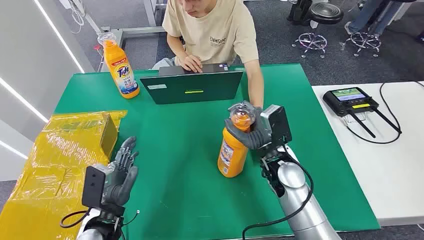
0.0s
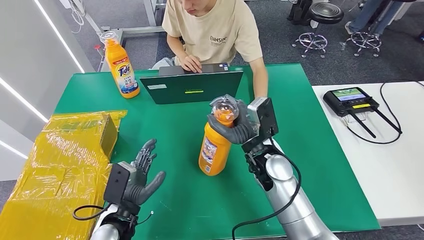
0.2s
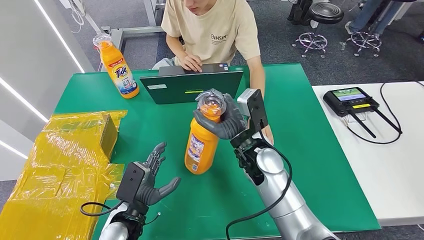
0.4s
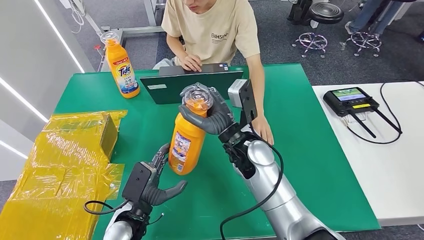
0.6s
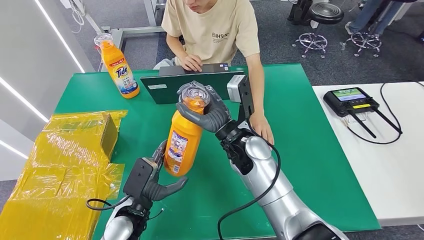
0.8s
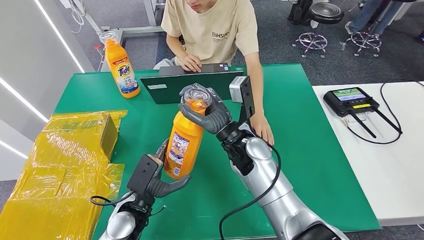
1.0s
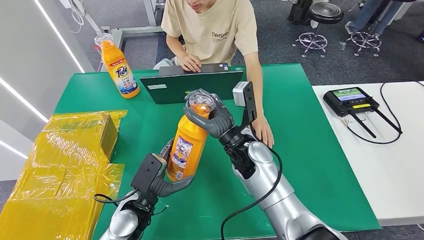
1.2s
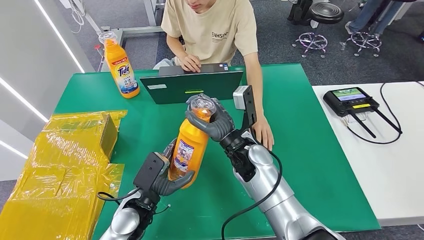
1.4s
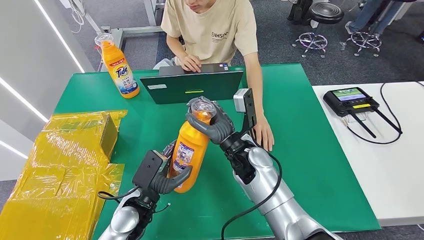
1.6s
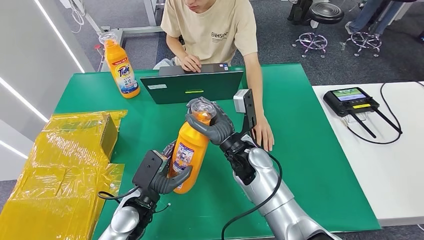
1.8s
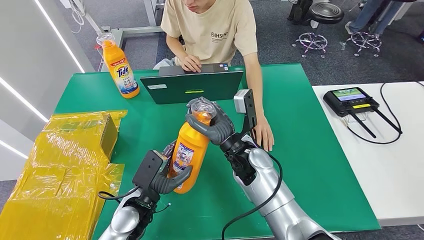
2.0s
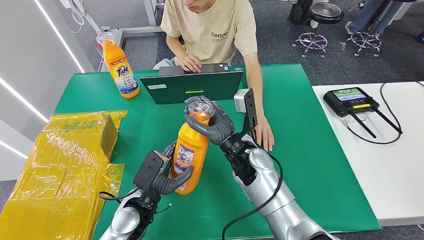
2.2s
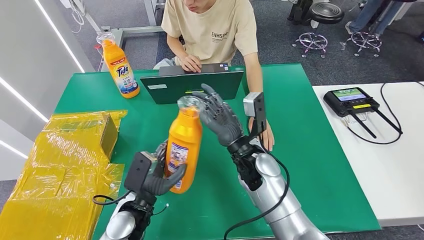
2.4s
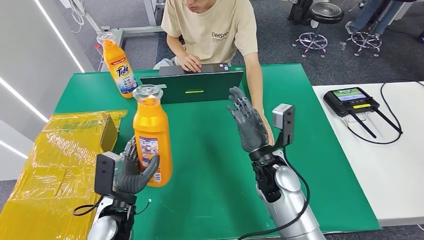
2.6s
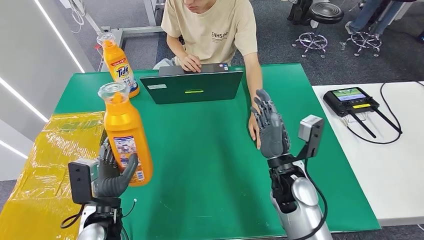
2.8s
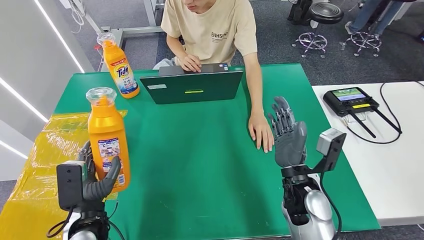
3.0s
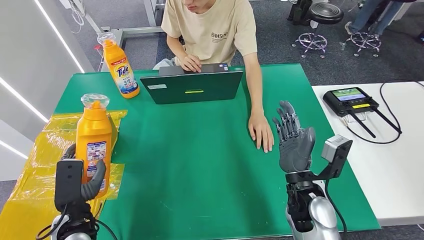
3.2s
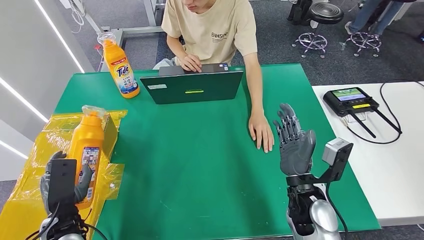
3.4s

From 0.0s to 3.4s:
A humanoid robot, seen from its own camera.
Step, from 0.0s to 1.0s: Pick up the bottle from the table.
Step, from 1.2s to 3.4s: Turn the bottle to the front side.

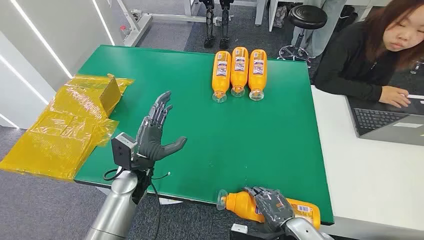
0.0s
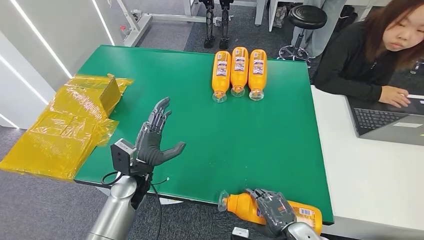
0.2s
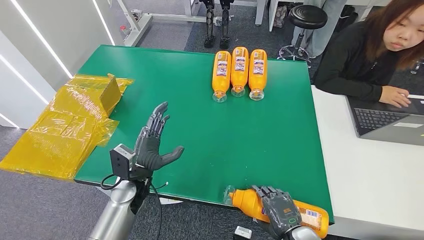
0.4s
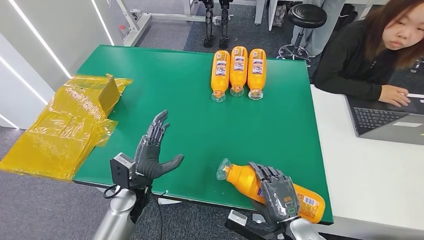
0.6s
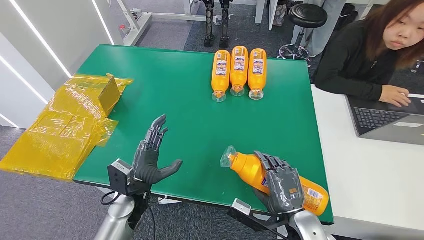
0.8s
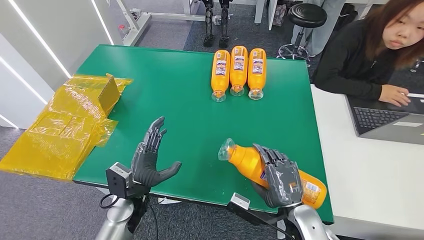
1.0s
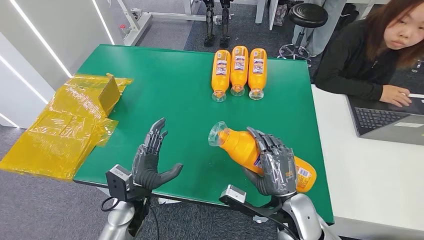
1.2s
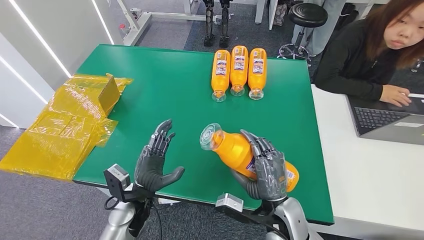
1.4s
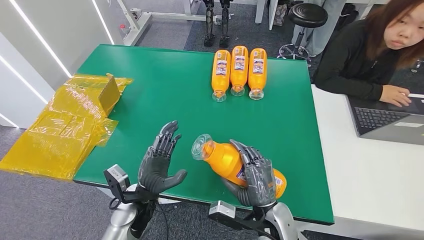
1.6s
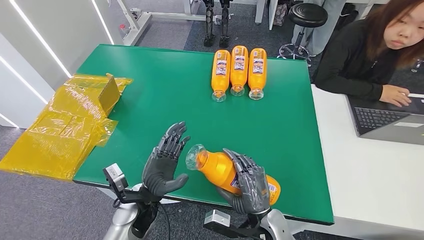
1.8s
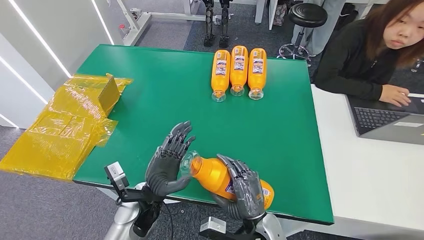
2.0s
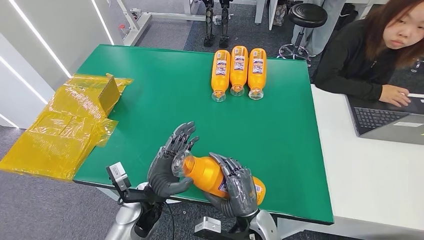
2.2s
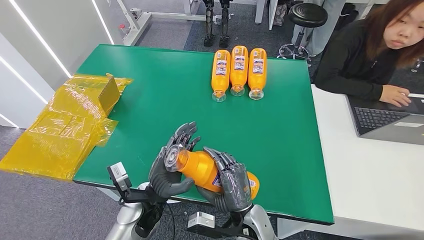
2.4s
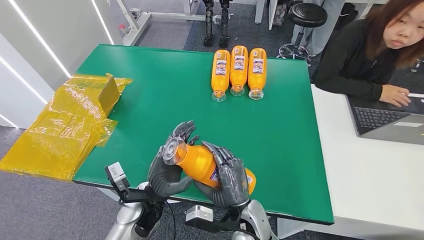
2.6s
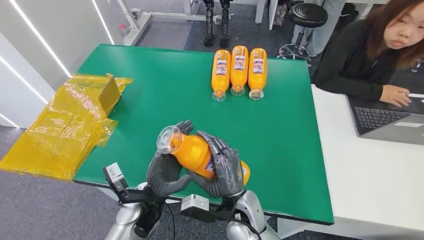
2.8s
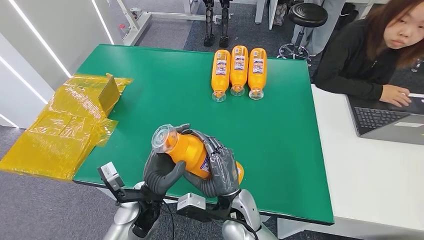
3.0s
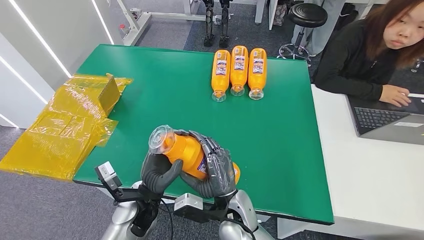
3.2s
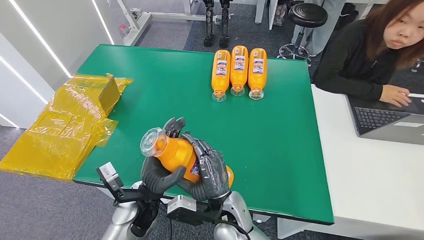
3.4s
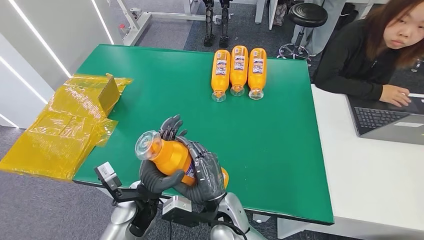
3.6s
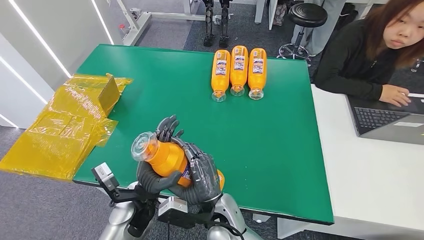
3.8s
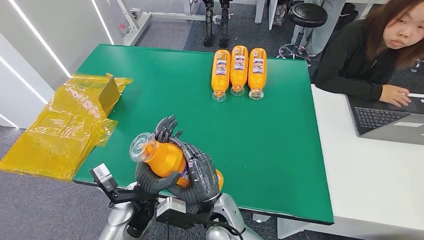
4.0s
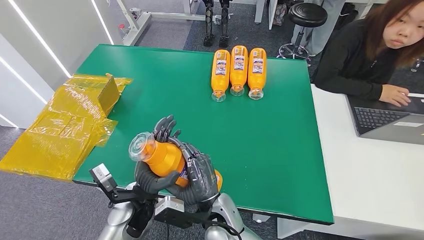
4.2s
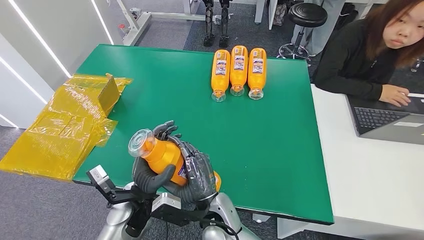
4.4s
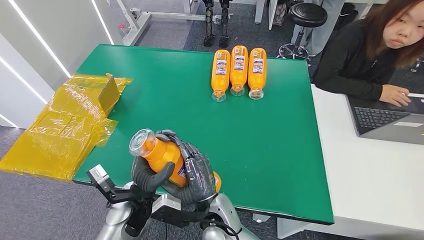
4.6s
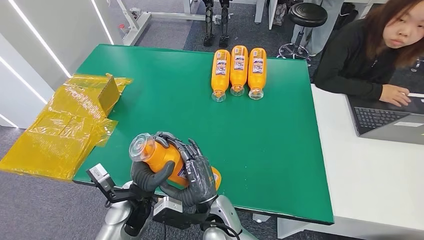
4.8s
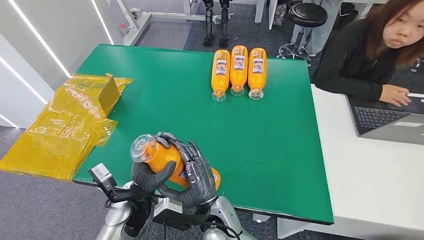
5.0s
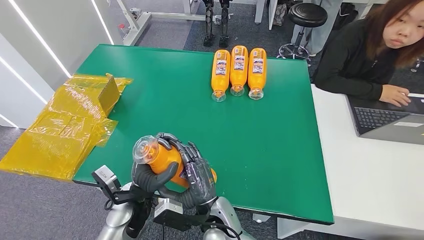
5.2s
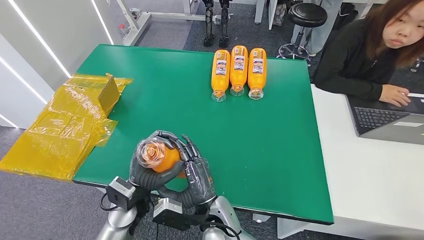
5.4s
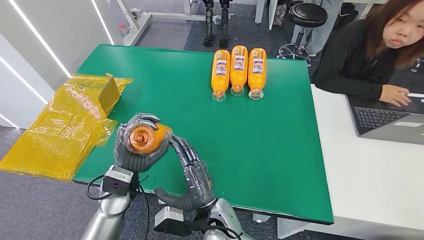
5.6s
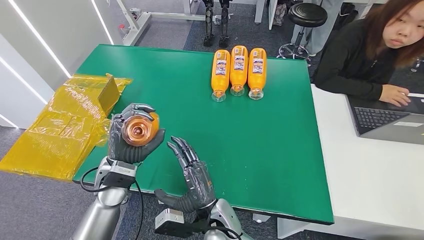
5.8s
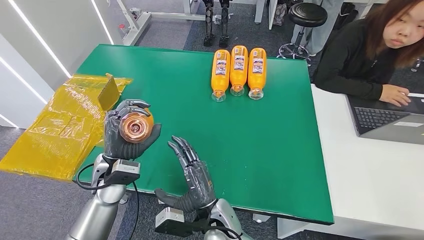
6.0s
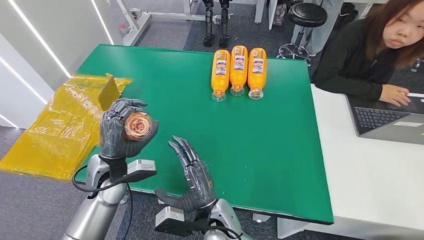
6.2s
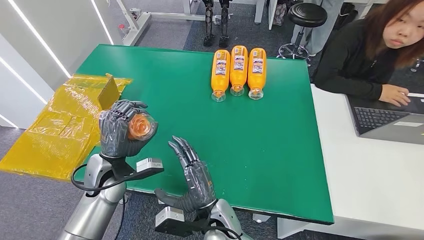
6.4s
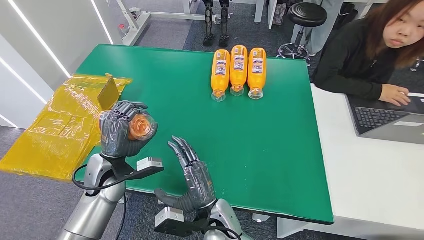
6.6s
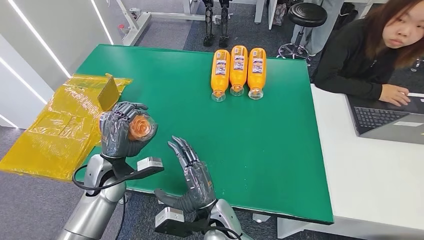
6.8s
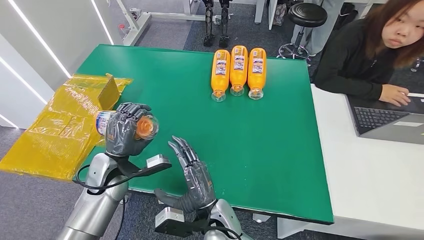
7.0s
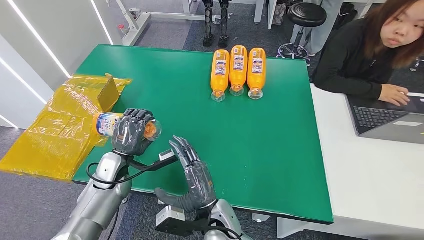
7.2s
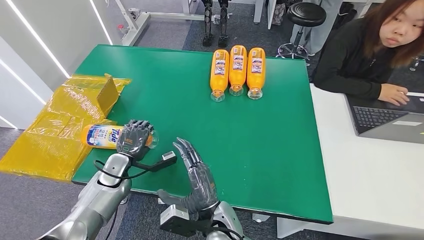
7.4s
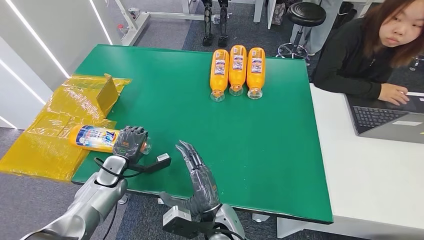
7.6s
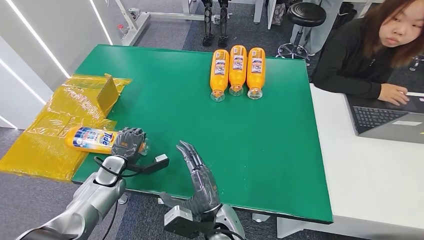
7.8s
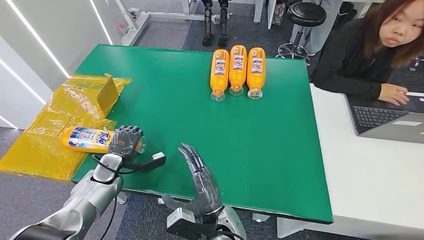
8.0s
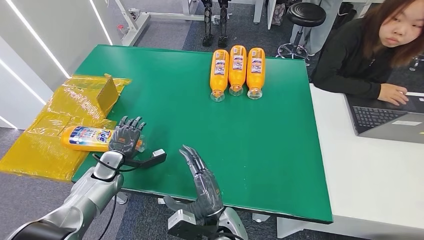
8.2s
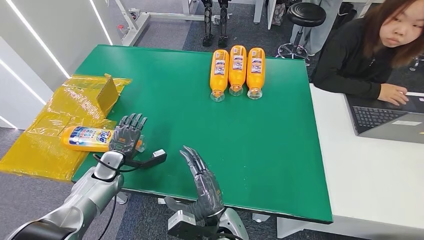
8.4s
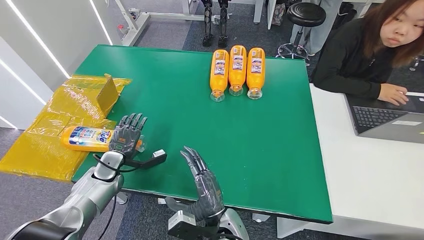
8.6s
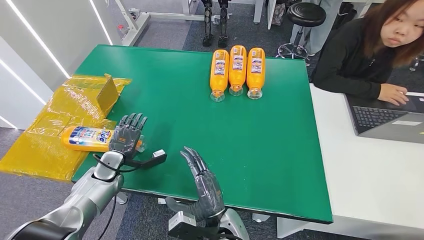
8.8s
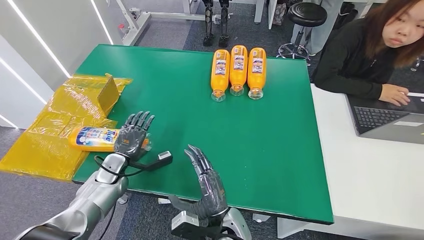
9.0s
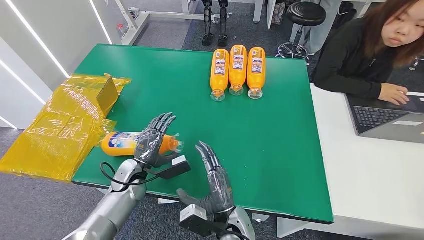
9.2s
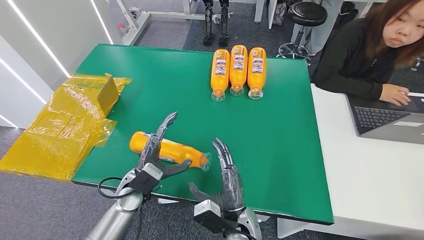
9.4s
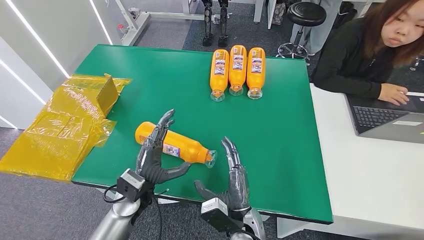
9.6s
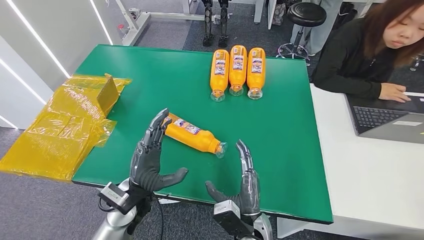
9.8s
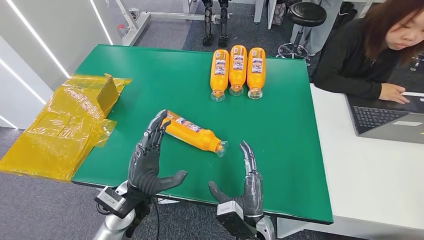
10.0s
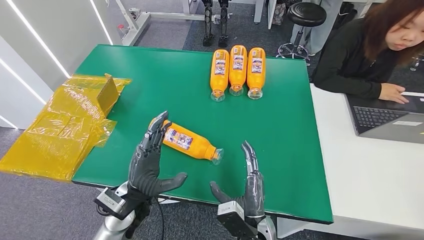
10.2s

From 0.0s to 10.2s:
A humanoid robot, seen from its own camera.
Step, from 0.0s to 3.8s: Pick up the bottle from the table.
Step, from 4.0s to 10.2s: Turn the bottle to the front side.
From 1.4s to 3.0s: The right hand shifts roughly 10 cm to the left.
From 3.0s to 4.4s: The right hand shifts about 5 cm to the left.
From 4.4s to 5.8s: The left hand is displaced to the left and forward by some 10 cm.
From 5.8s to 7.2s: The left hand shifts some 5 cm to the left.
From 7.2s to 8.8s: The left hand heads to the left, covering approximately 5 cm.
From 8.8s to 10.2s: The right hand goes some 10 cm to the right; the left hand heads to the right, backward and upward, covering about 20 cm.

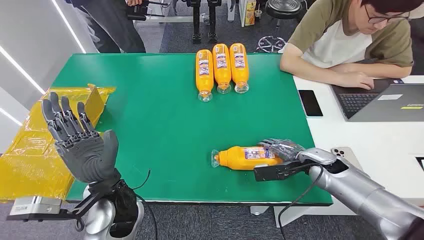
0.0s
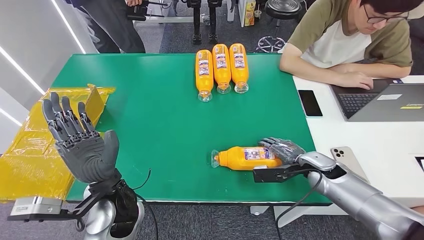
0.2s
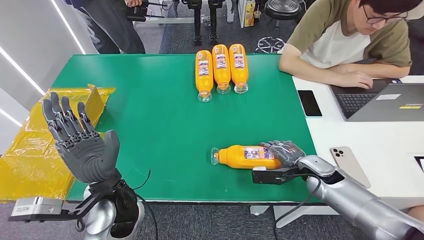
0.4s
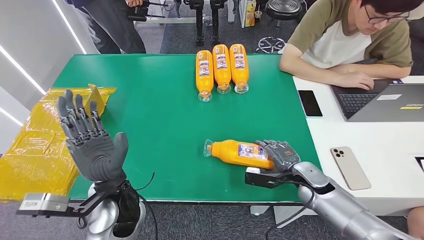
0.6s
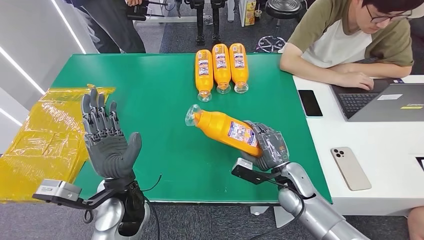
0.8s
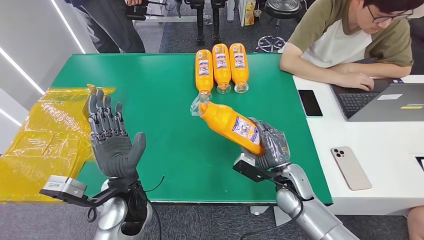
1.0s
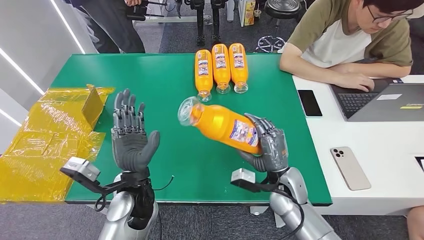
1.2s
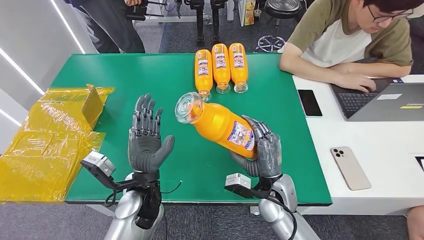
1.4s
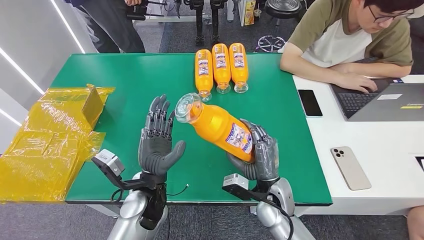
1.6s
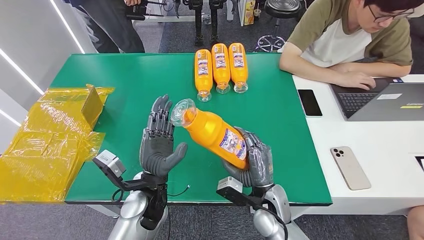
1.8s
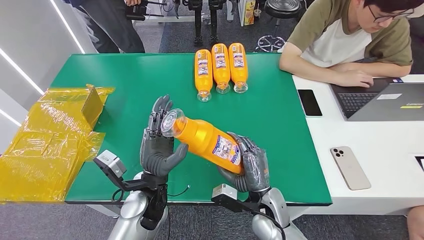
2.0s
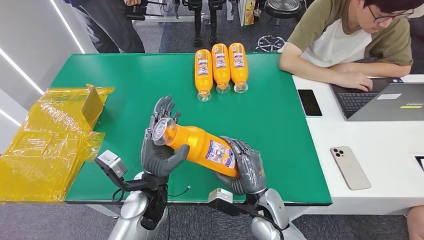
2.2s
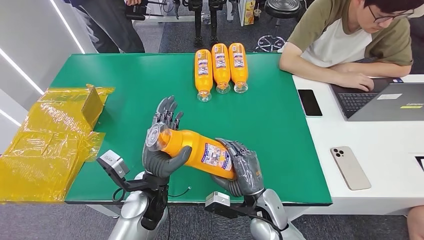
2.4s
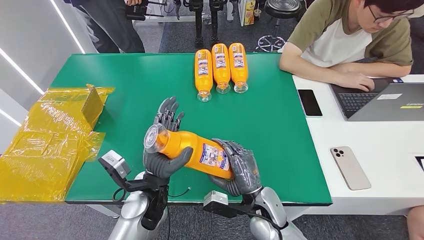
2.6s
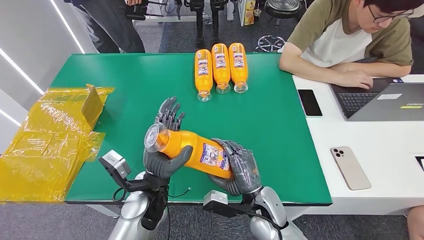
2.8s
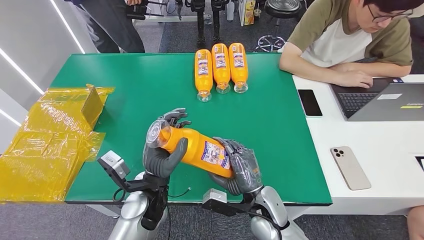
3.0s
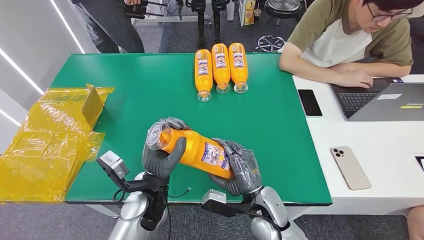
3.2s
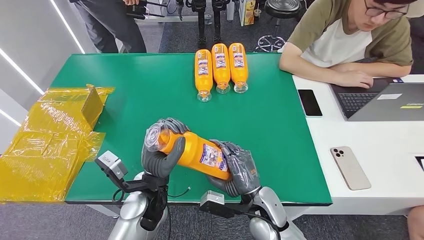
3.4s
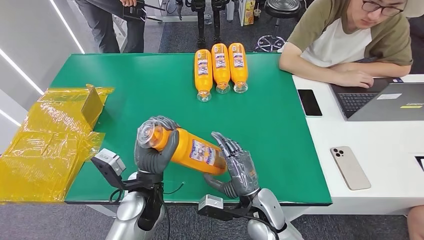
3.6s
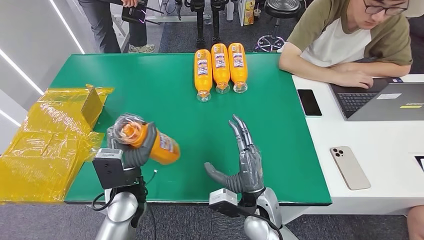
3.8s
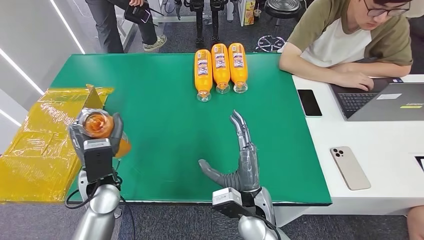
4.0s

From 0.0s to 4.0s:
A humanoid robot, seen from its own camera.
Step, from 0.0s to 2.0s: Pick up the bottle from the table.
From 1.4s to 2.6s: The right hand ends up approximately 5 cm from where it was.
From 2.6s to 4.0s: The right hand shifts by roughly 5 cm; the left hand travels to the left by approximately 10 cm.
